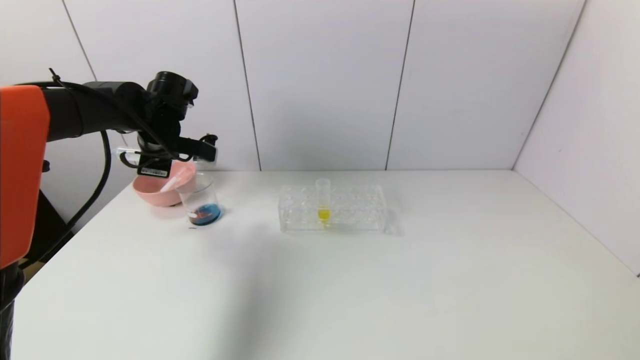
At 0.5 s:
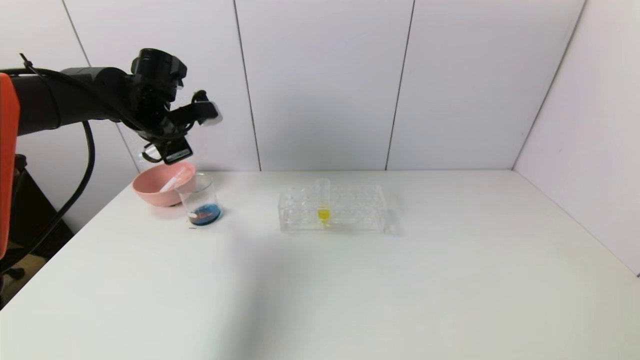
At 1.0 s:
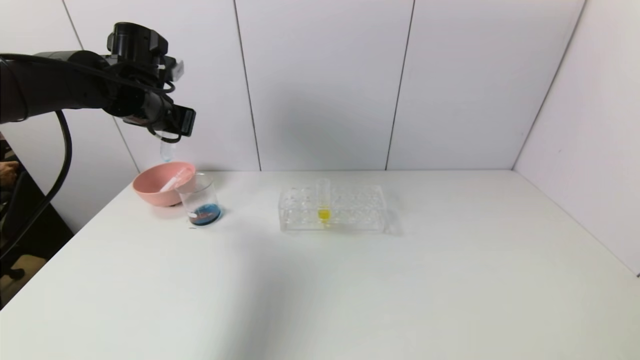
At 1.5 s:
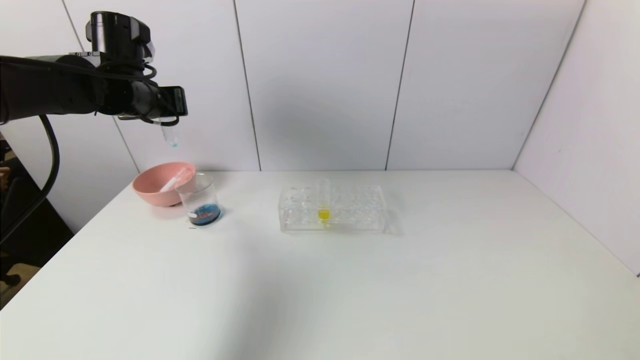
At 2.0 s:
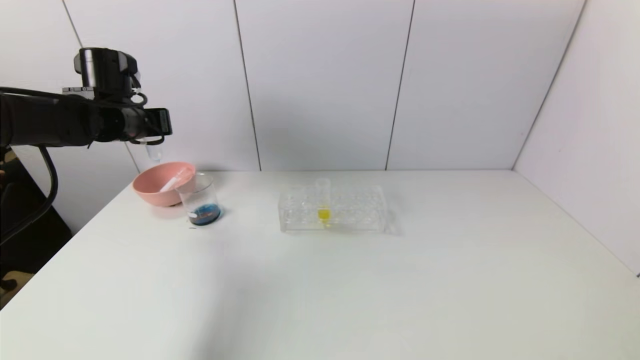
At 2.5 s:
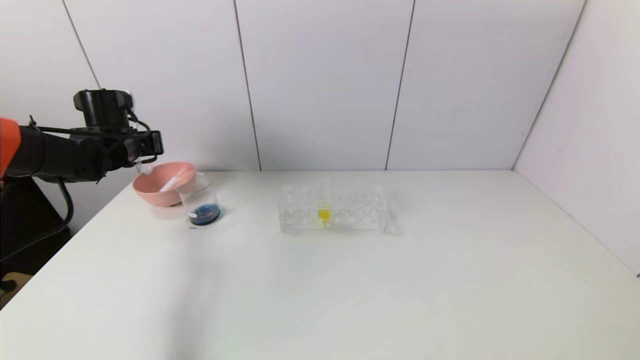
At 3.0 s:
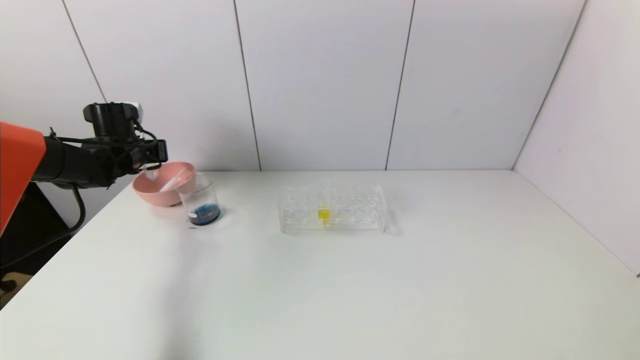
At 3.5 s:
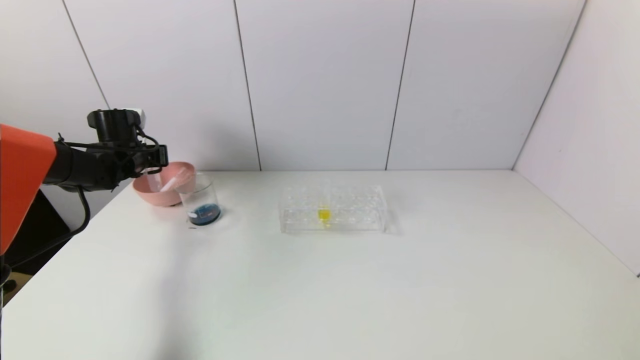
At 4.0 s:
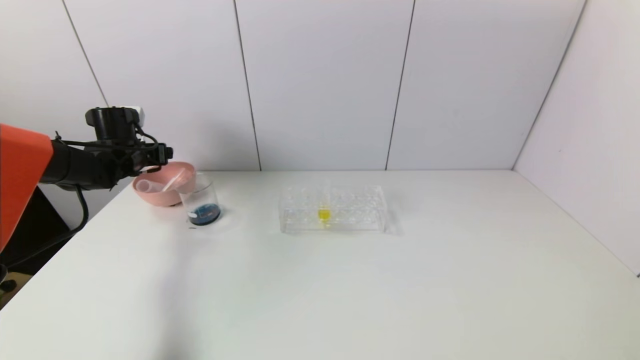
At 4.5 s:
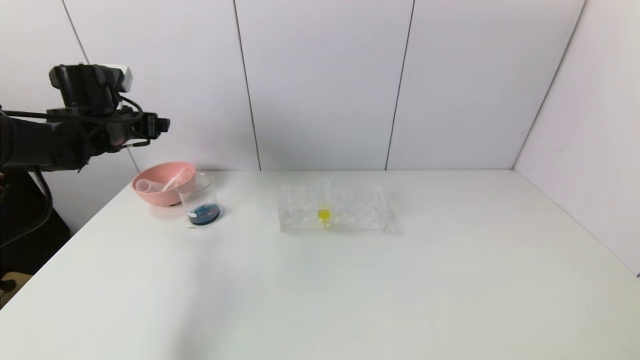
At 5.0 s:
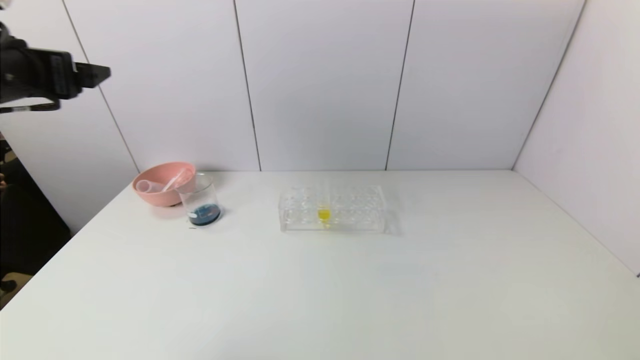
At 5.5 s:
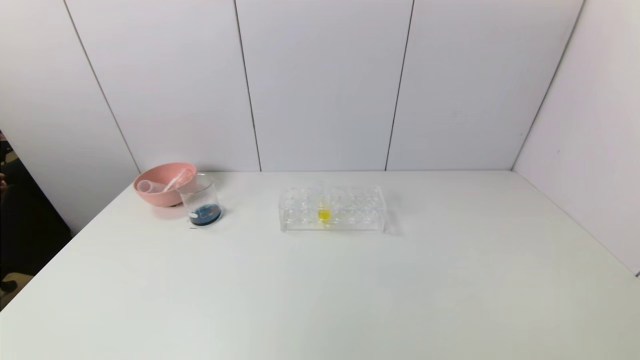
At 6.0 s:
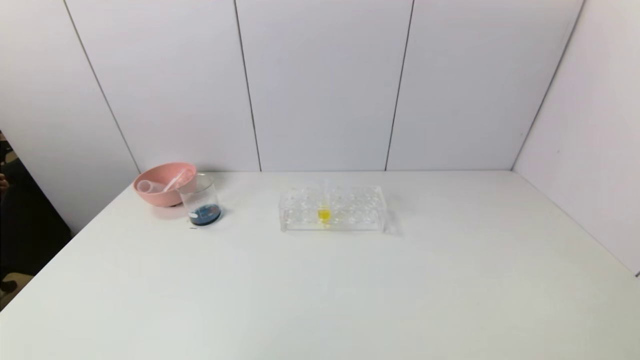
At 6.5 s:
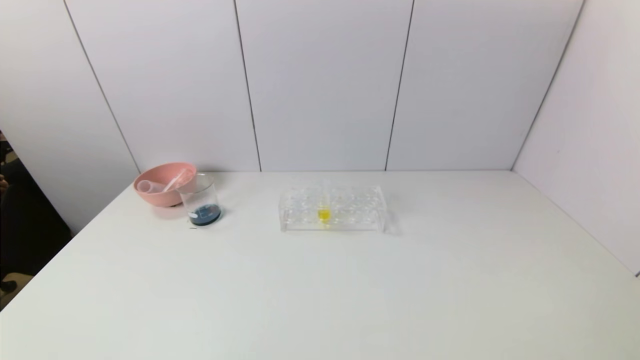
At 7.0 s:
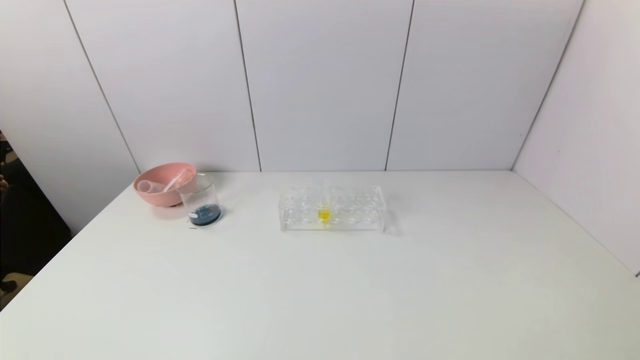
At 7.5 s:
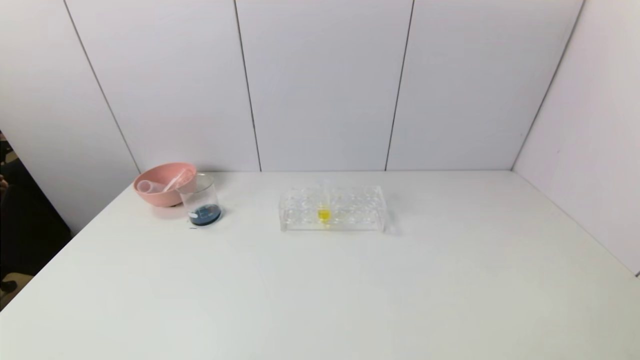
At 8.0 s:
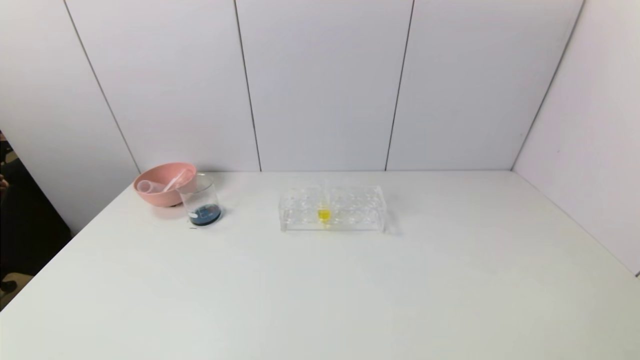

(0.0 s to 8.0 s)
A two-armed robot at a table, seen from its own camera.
Task of the whole recording: pick up the test tube with red pigment and the test tube with blue pigment by grippers and pour them into the container.
Step, 0.0 s - 4.0 s: Place the test tube into the bowl with the left gripper.
0.0 s - 2.0 s: The left gripper ends up about 5 cm from where it was.
2.0 s - 4.0 s: The left gripper goes roughly 10 cm downward, to the left and forward, and opens its fingers.
4.0 s - 6.0 s: The left gripper is displaced backward by roughly 50 cm.
